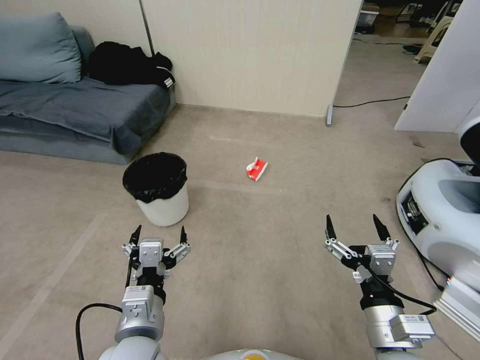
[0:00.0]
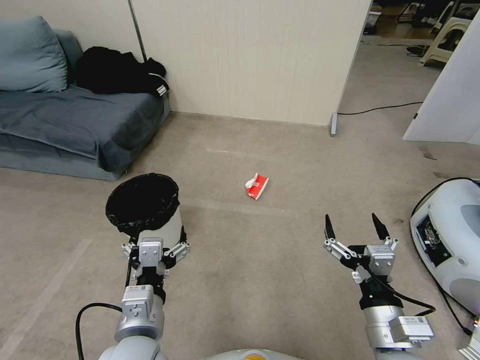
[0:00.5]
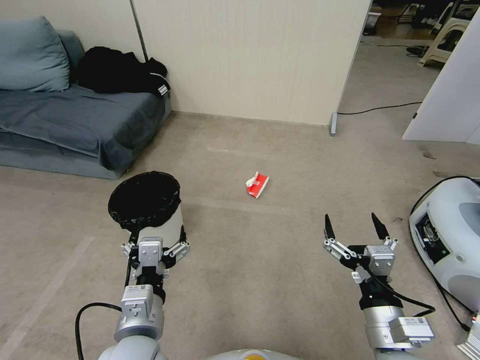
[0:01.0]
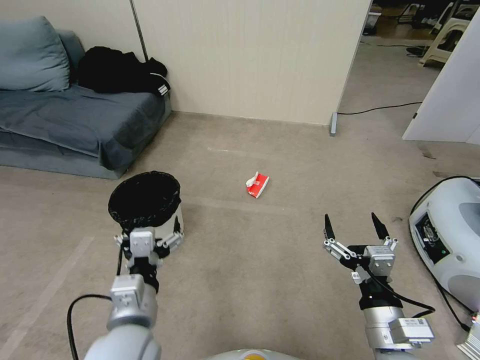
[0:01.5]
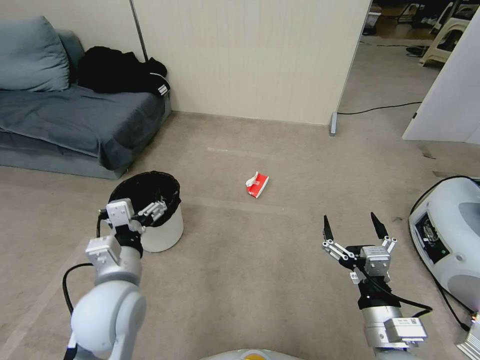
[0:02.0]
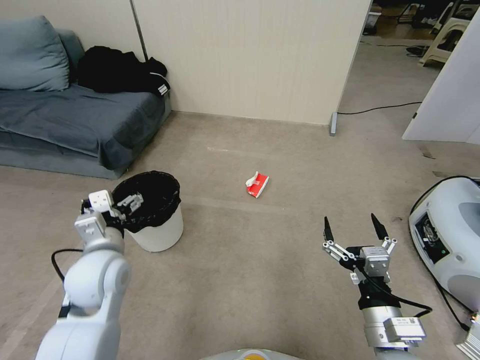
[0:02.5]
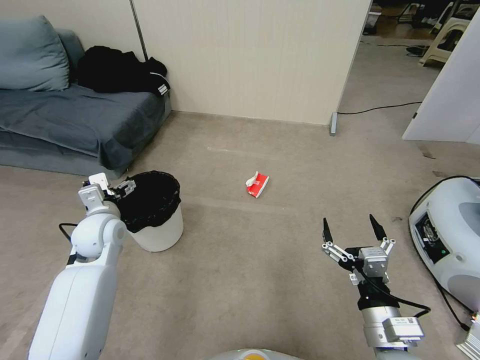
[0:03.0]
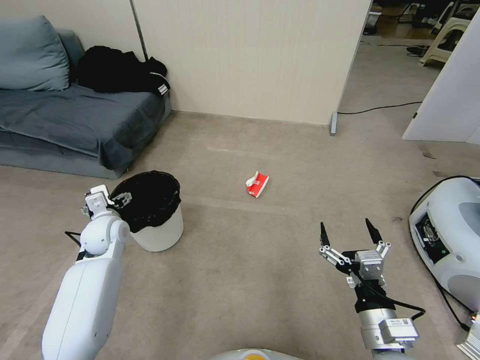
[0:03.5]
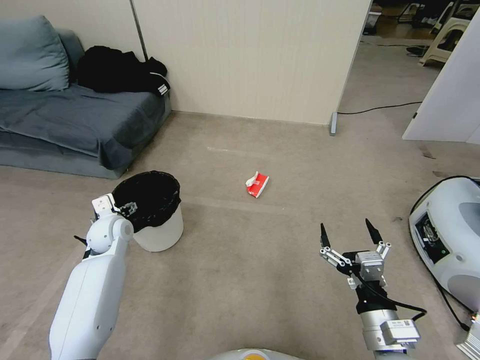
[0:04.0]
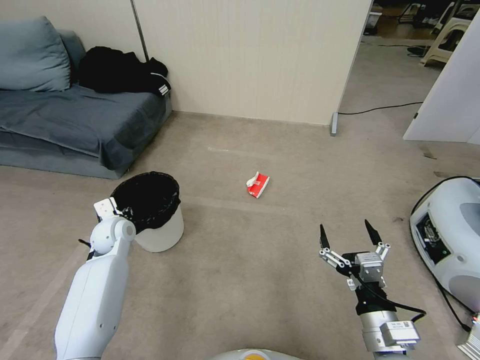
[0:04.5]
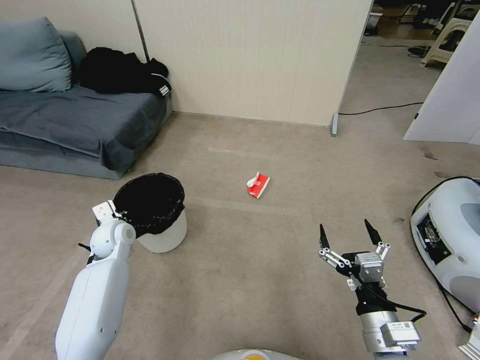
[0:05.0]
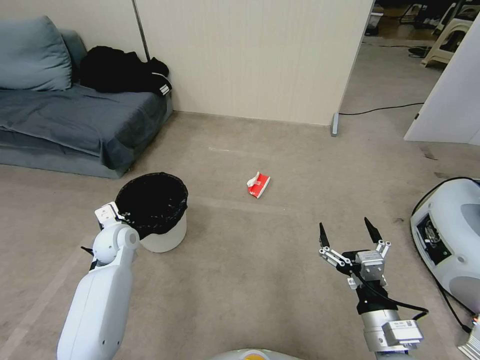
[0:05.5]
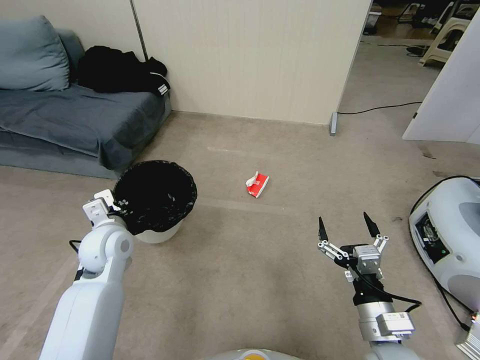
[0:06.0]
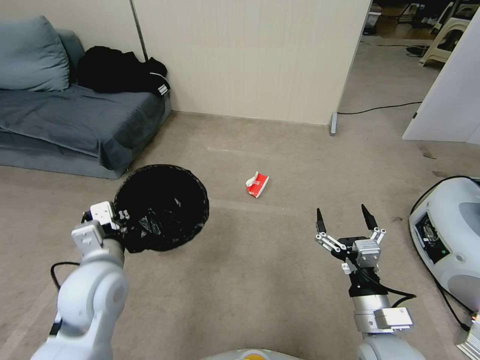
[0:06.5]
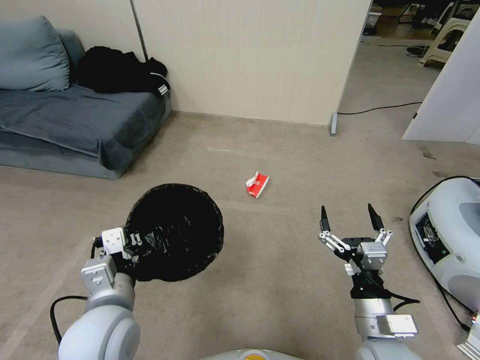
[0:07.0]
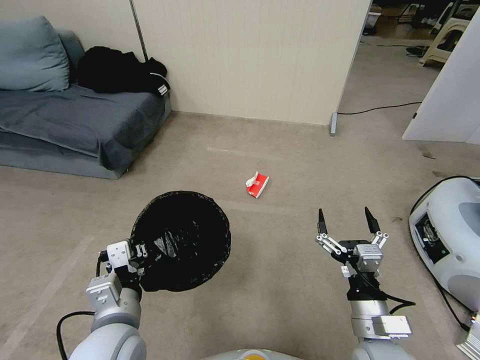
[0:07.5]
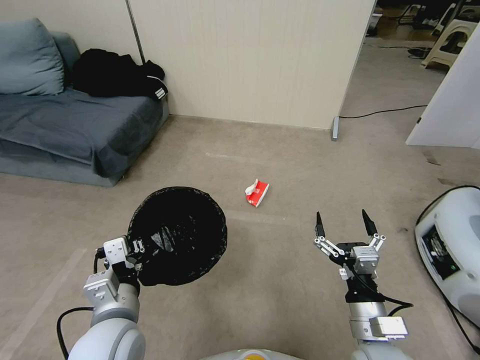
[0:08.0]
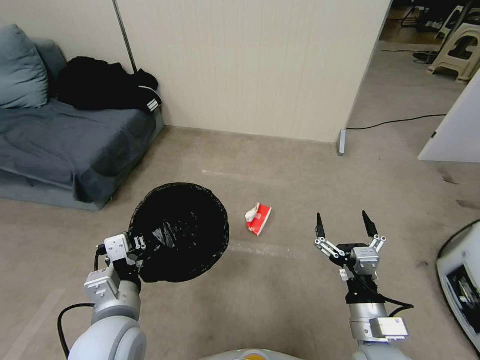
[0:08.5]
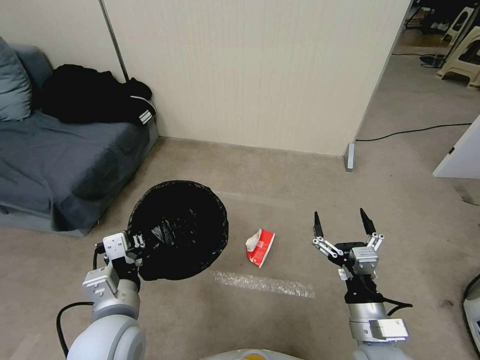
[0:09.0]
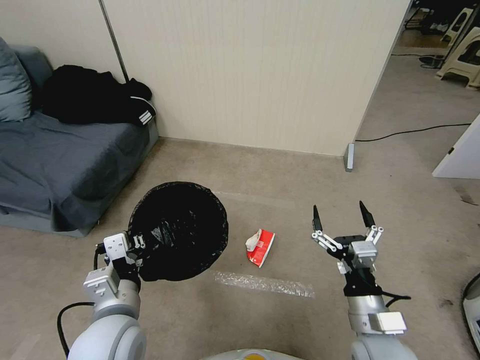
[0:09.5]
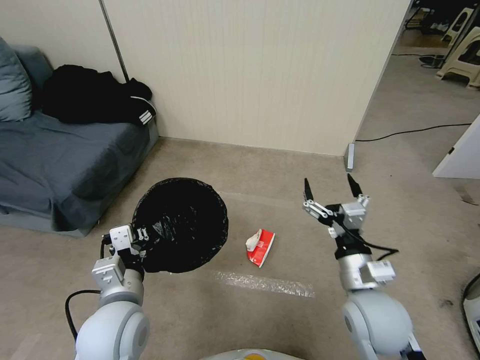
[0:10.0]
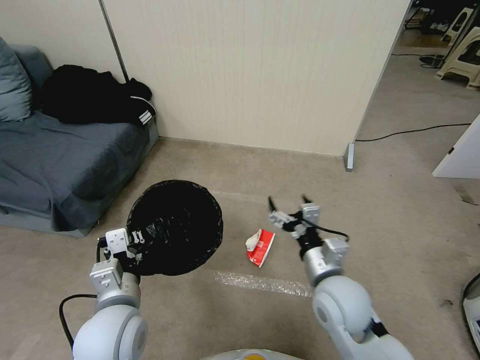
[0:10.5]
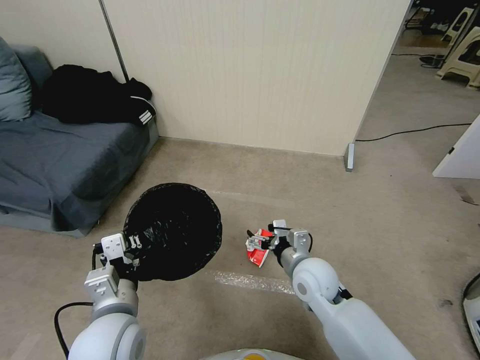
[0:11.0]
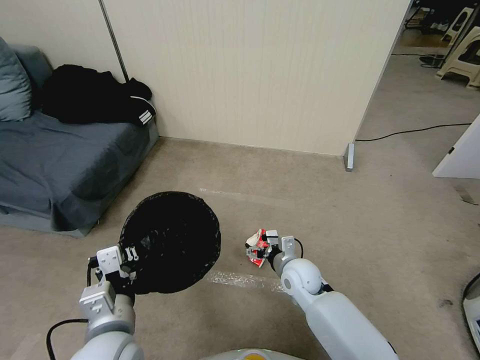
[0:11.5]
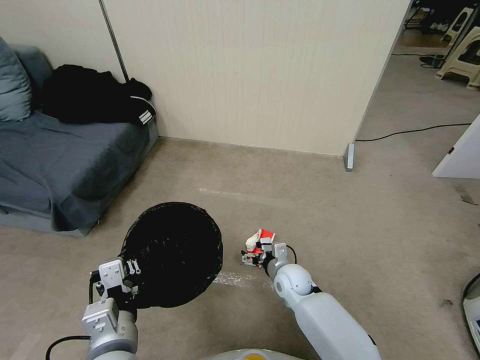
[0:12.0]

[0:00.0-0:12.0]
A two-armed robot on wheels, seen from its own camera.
Task of the whole recording: Pick up the trash bin, then pick up the garbage from the floor and place it into the trash bin.
0:00.0 to 0:02.0: The left gripper travels forward by some 5 cm.
0:02.0 to 0:04.0: The left gripper moves forward, to the left and downward, some 25 cm.
0:04.0 to 0:06.0: The left gripper moves backward, upward and to the right, some 10 cm, and closes up.
0:06.0 to 0:08.0: The left gripper shifts approximately 20 cm backward and to the right.
0:08.0 to 0:10.0: The right gripper travels forward by about 5 cm.
0:10.0 to 0:12.0: The right gripper shifts about 25 cm downward, forward and to the left; the left gripper goes about 5 cm backward.

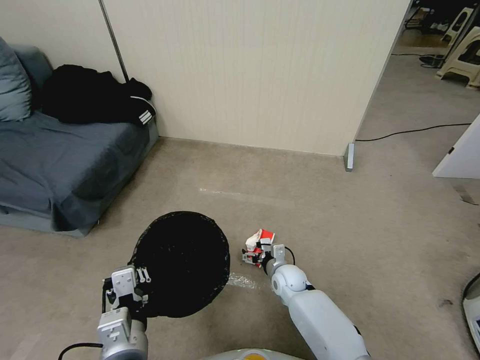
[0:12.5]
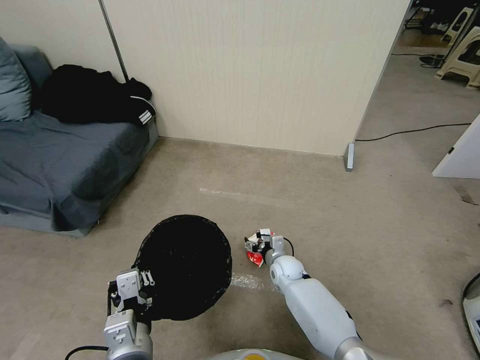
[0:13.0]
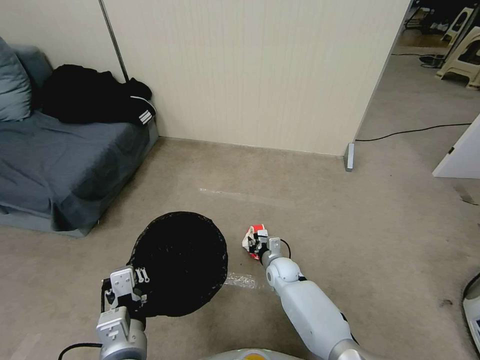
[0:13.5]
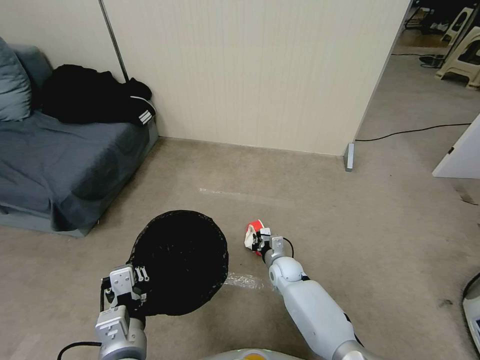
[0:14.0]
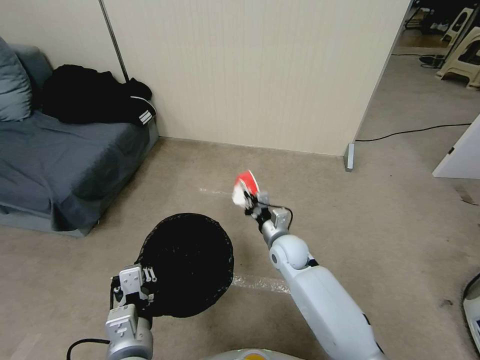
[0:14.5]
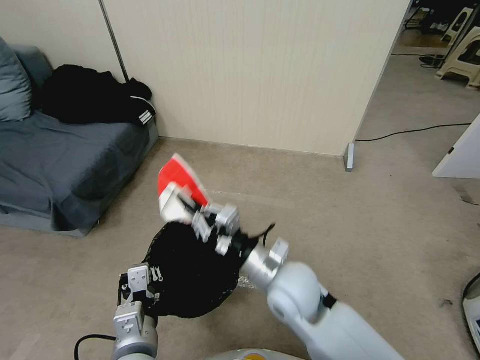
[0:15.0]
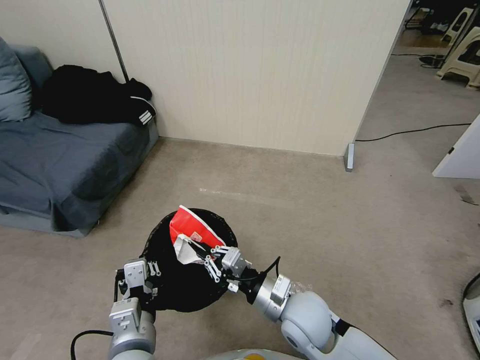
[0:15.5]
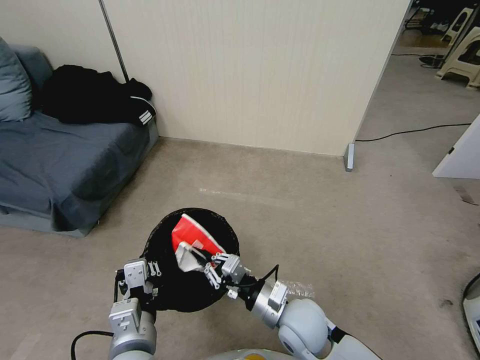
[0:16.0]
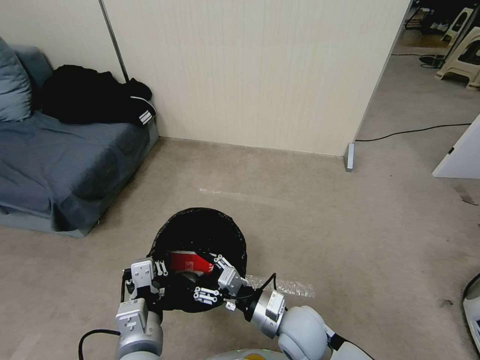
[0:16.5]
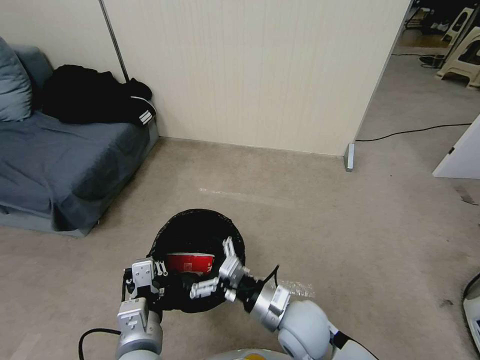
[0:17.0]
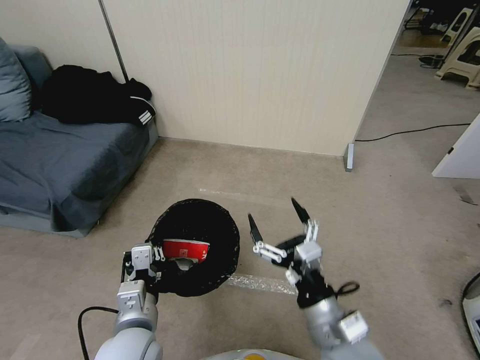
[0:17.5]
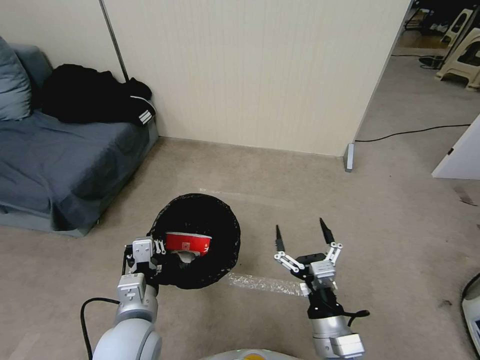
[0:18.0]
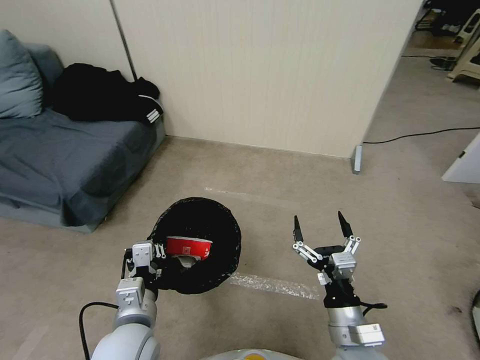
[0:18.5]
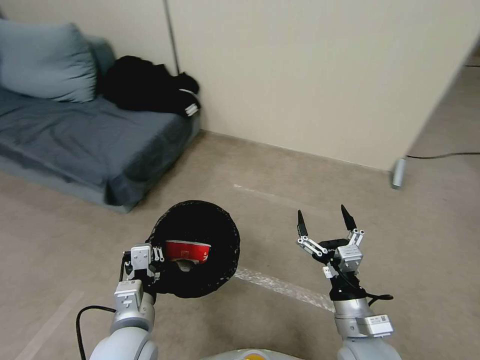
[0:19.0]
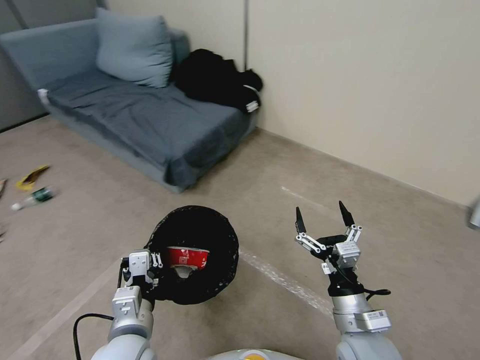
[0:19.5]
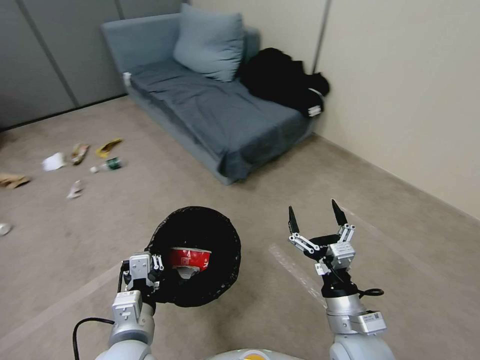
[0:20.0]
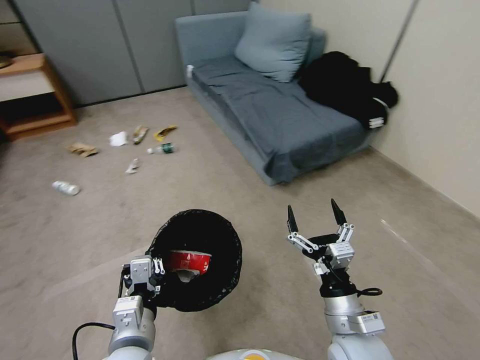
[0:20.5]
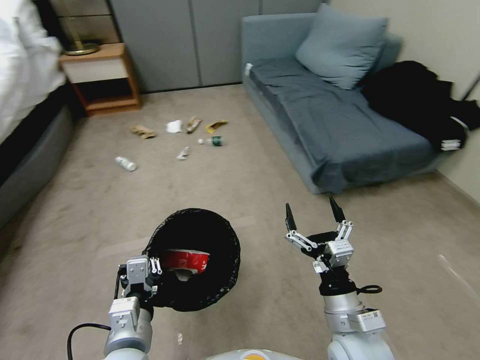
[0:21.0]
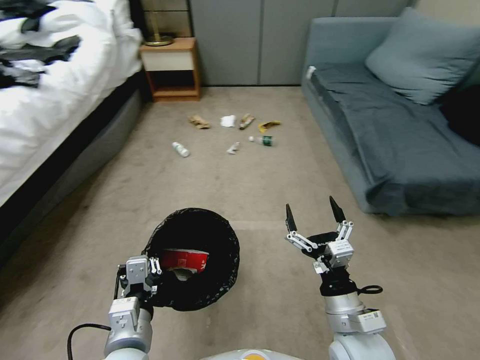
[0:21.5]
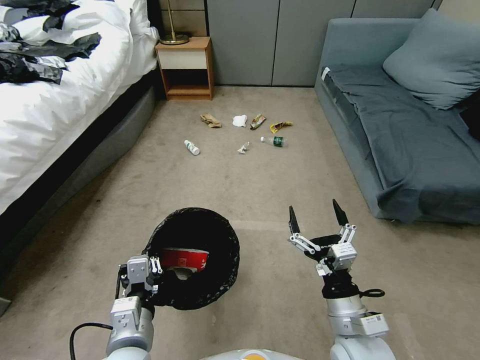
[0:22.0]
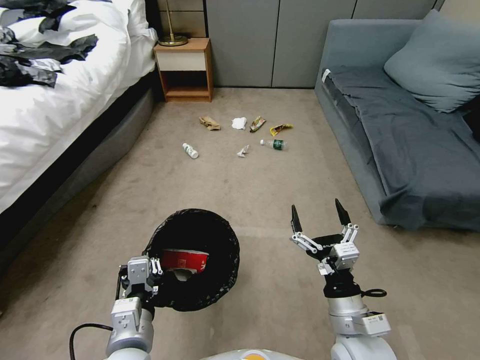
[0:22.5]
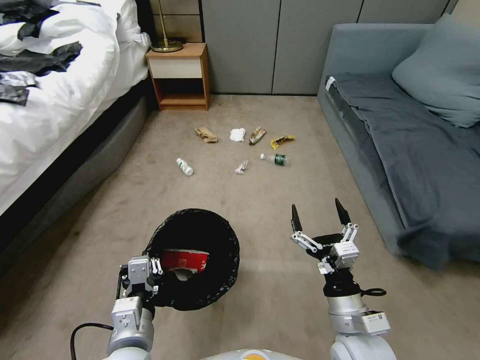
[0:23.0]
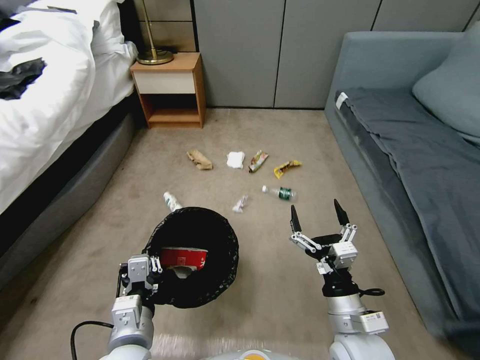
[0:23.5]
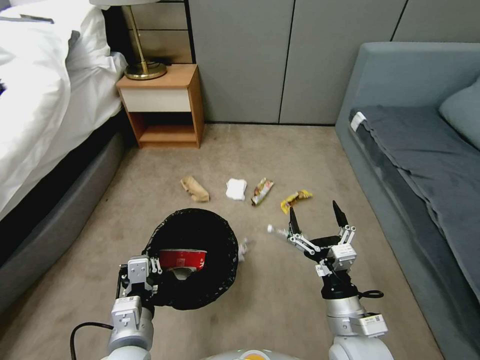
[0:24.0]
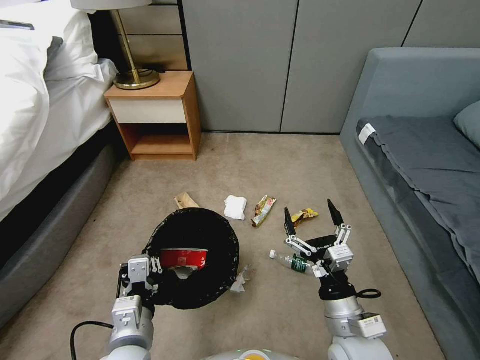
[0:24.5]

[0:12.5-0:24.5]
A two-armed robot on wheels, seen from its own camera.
Task of the whole recording: Pick up the trash bin, then pick up the garbage from the floor and place it into the trash bin.
0:12.5 to 0:14.5: The right gripper moves upward, about 15 cm, and closes.
0:14.5 to 0:16.5: The right gripper shifts roughly 20 cm backward, and opens up.
0:16.5 to 0:18.5: The left gripper moves about 5 cm. Meanwhile the right gripper shifts roughly 10 cm to the right and backward, and opens.

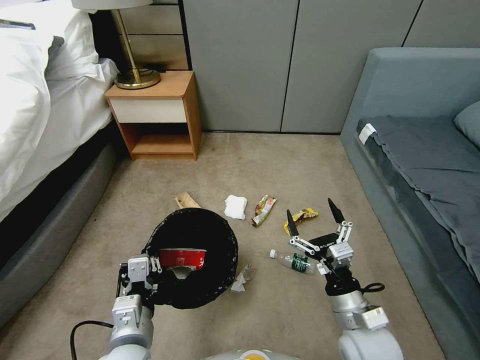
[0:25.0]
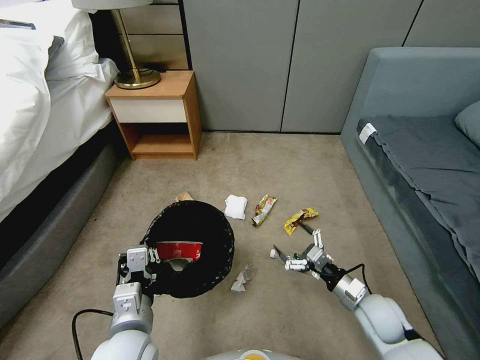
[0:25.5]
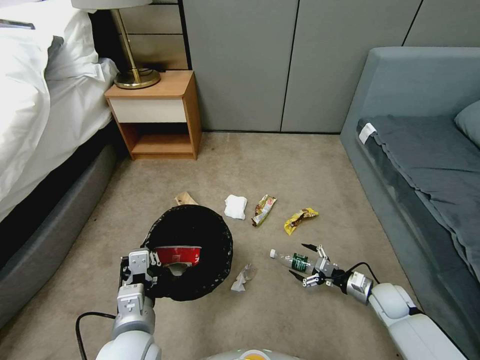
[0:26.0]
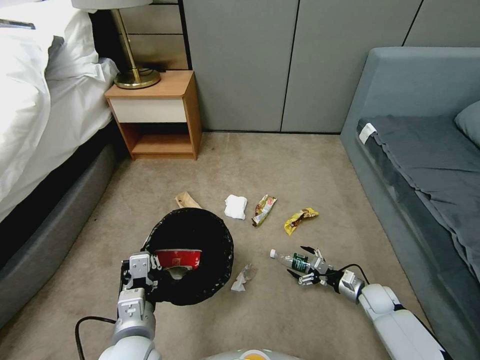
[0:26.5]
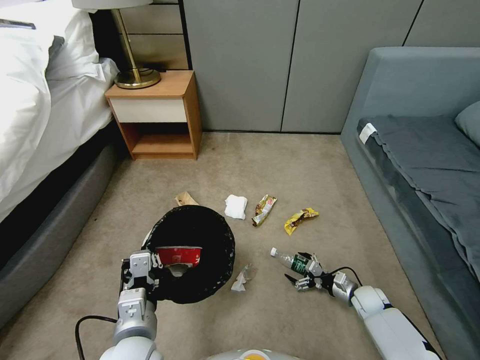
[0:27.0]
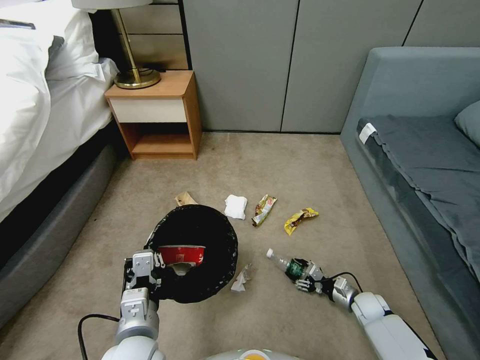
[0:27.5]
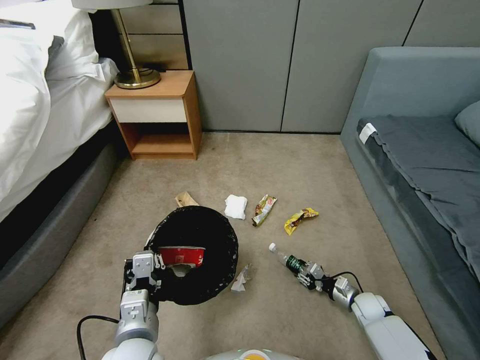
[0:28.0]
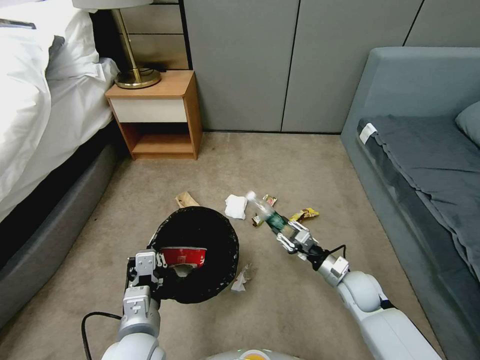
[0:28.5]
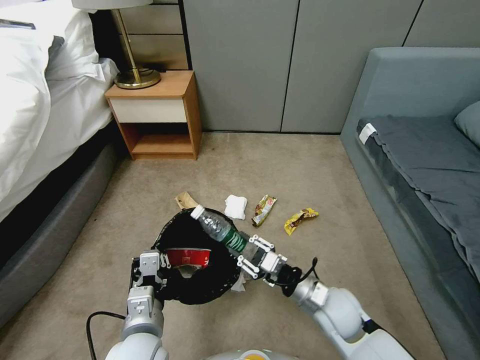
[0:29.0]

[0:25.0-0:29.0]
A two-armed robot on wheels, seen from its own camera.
Task of the whole recording: Pick up the trash bin, then pick up the garbage from the floor and place it into the trash bin.
0:25.0 to 0:27.0: The right gripper goes some 30 cm downward, to the right and forward.
0:27.0 to 0:29.0: The right gripper goes approximately 25 cm upward and to the left, and closes up.
